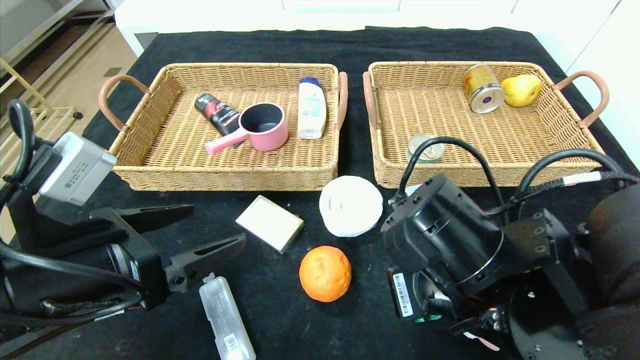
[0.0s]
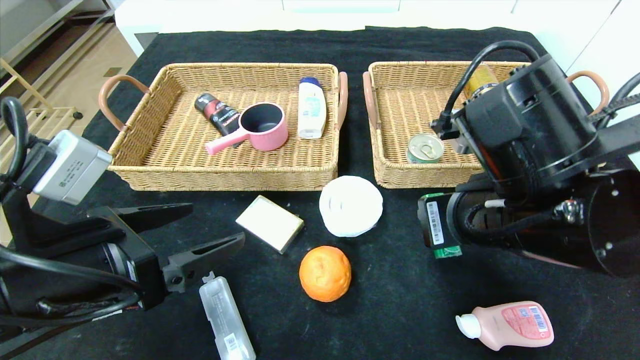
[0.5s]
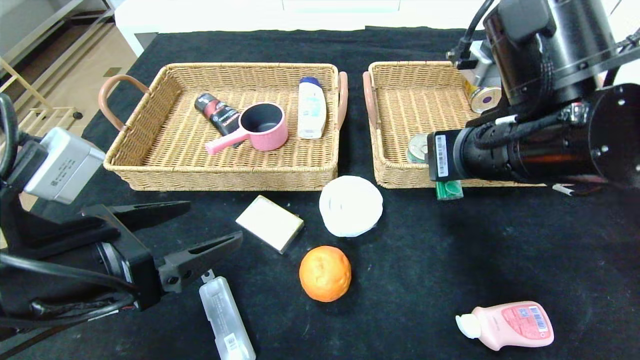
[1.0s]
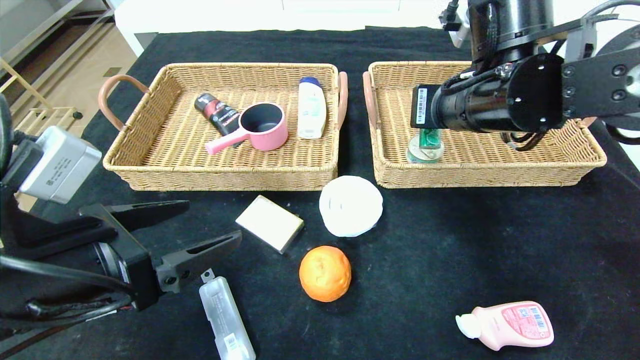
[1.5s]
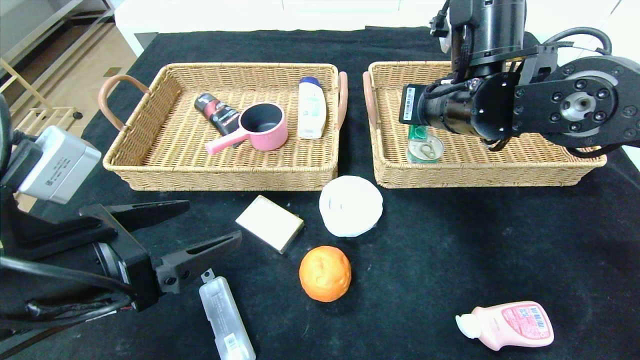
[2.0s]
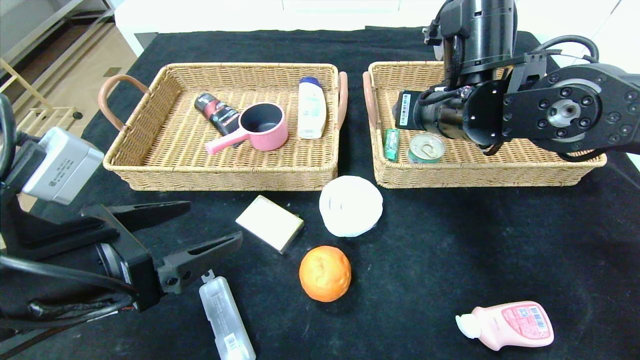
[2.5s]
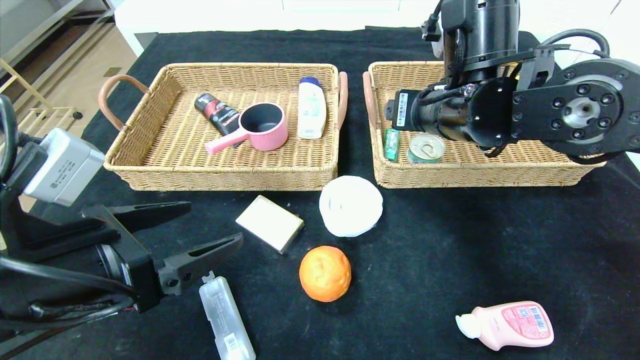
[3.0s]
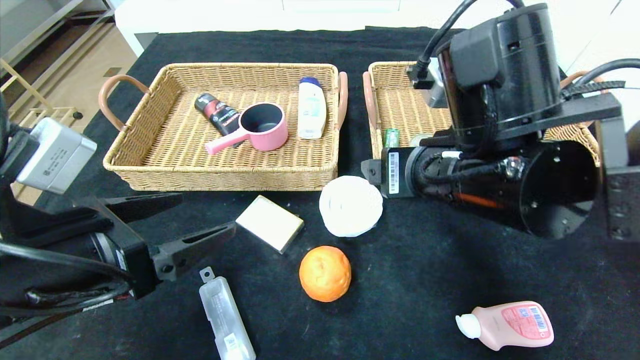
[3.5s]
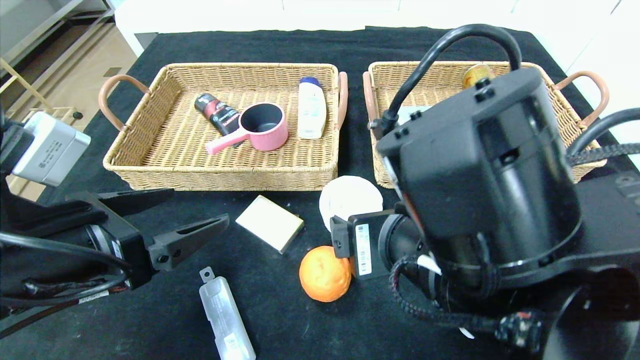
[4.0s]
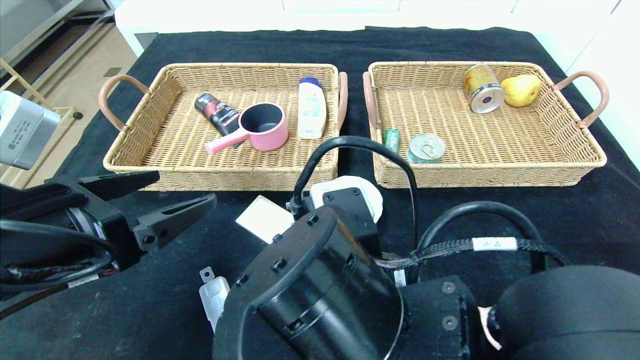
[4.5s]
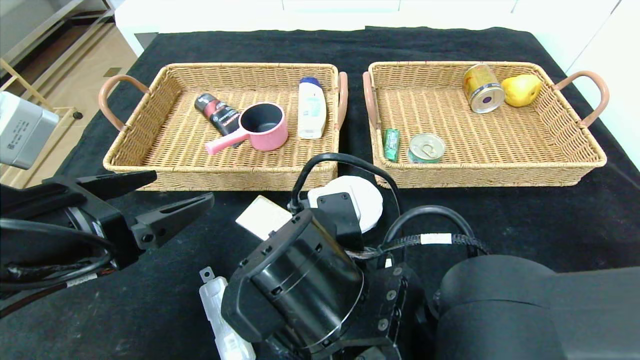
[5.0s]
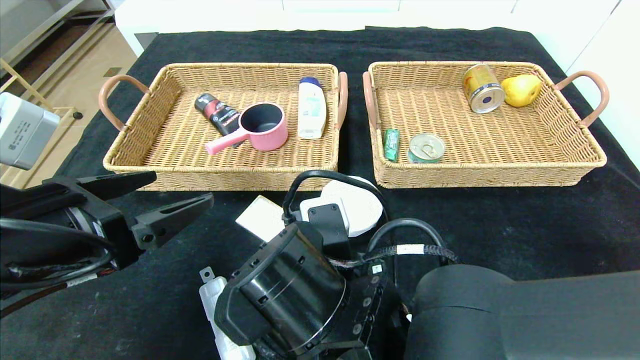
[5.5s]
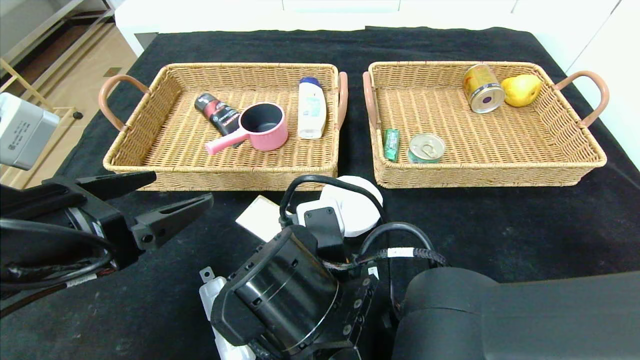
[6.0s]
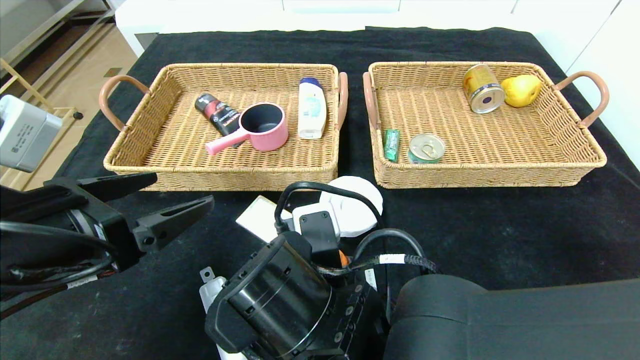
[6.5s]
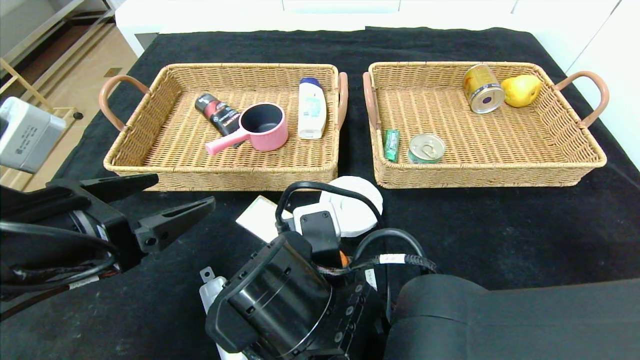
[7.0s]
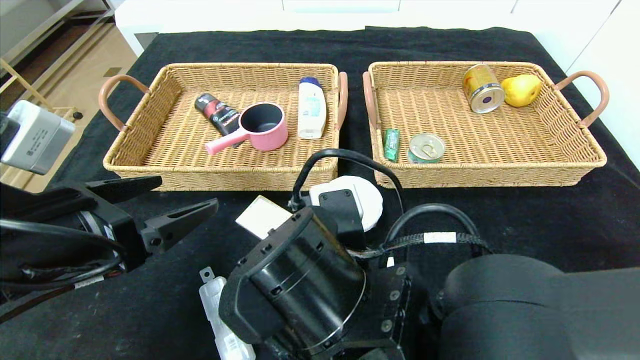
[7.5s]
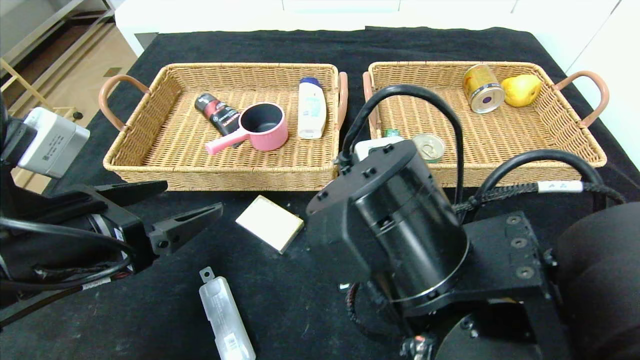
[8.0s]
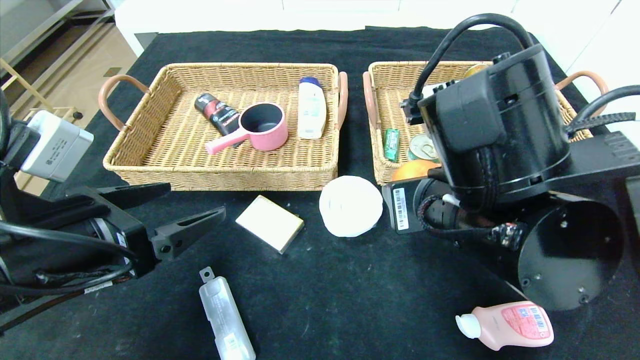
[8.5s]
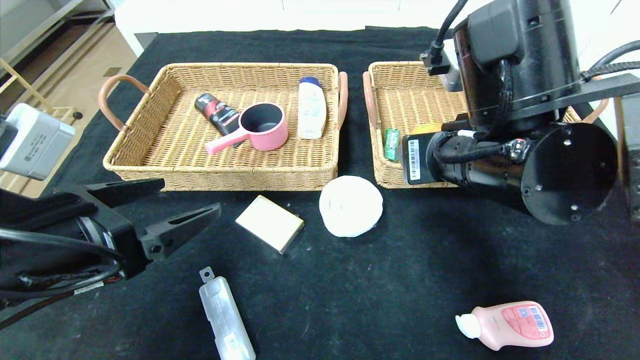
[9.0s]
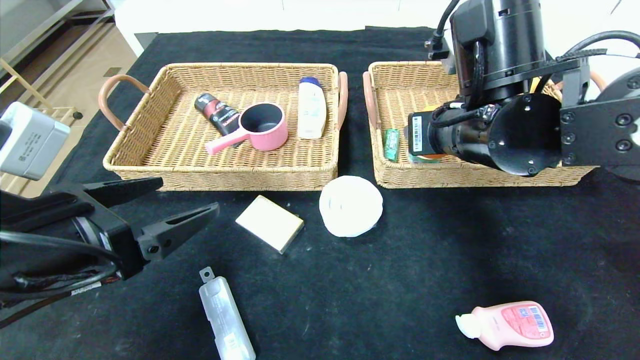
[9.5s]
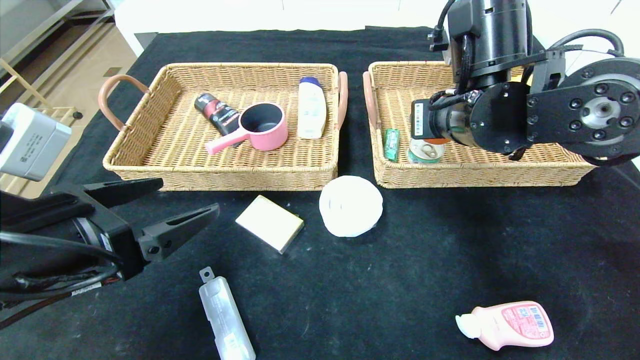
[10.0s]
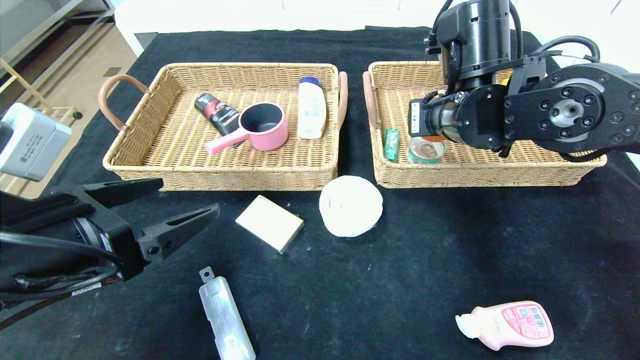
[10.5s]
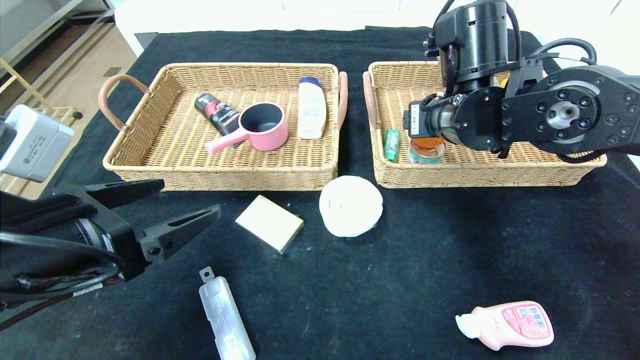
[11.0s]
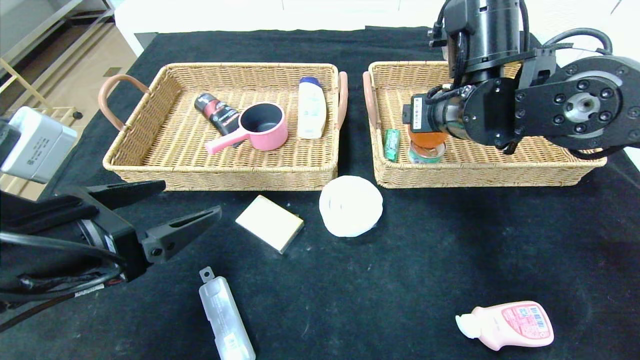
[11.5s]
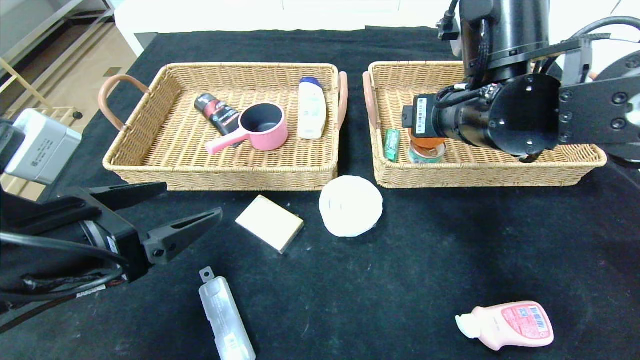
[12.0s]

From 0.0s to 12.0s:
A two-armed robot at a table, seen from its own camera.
Step, from 0.0s to 4.0s: Pick up the green chewing gum and put it in the right basket.
From 0.0s to 2.0s: The right gripper shifts roughly 20 cm forward and upward.
From 2.0s to 4.0s: The right gripper shifts roughly 20 cm backward, and opens.
From 4.0s to 6.0s: The right gripper shifts approximately 10 cm downward and to the left.
From 6.0s to 8.0s: The right gripper heads upward and to the right, covering approximately 10 cm.
From 8.0s to 10.0s: The right gripper travels forward, to the right and upward by some 20 cm.
From 10.0s to 12.0s: The right gripper opens.

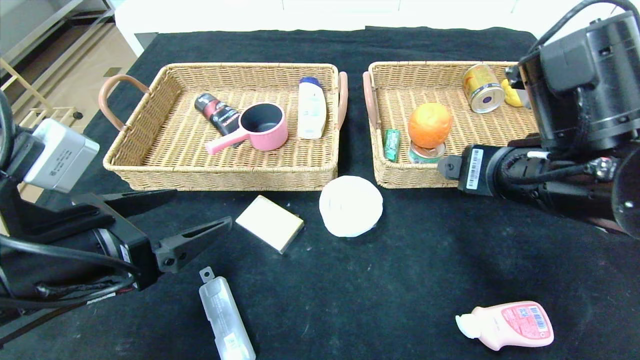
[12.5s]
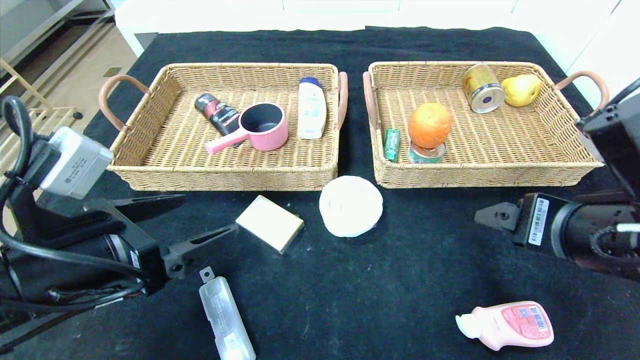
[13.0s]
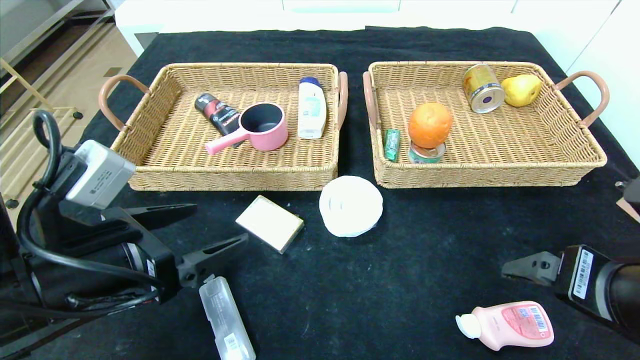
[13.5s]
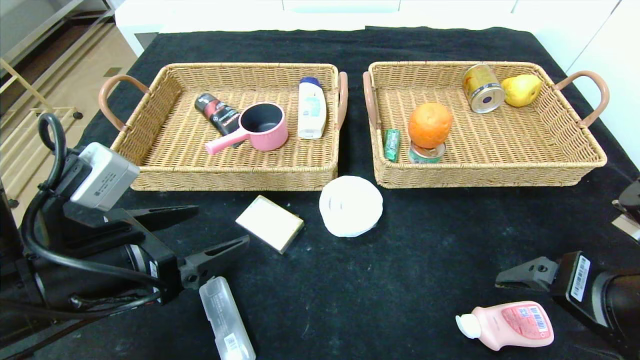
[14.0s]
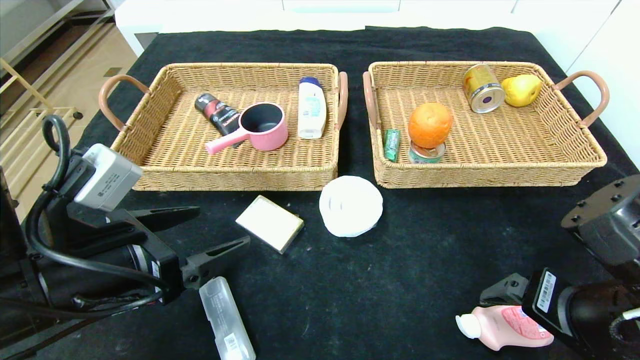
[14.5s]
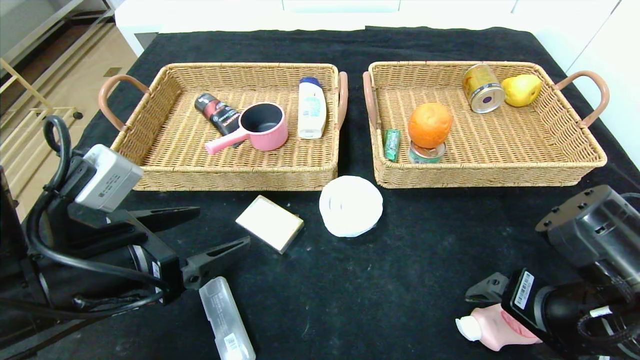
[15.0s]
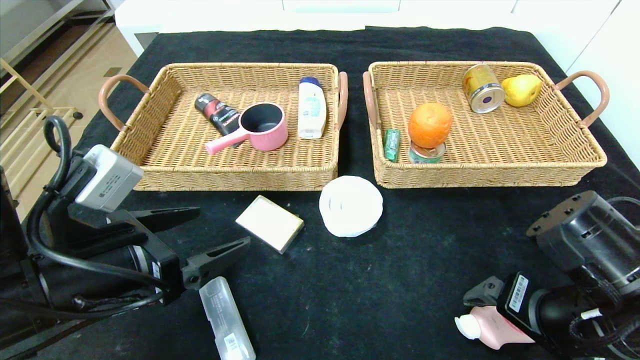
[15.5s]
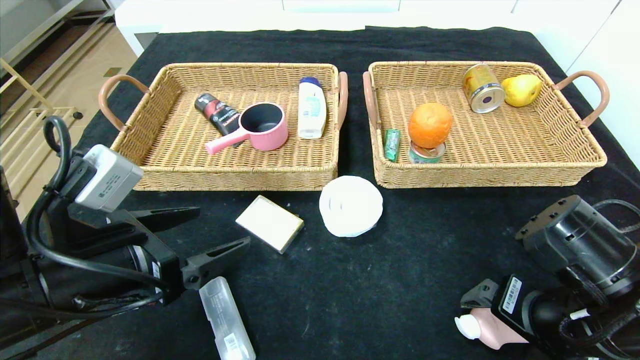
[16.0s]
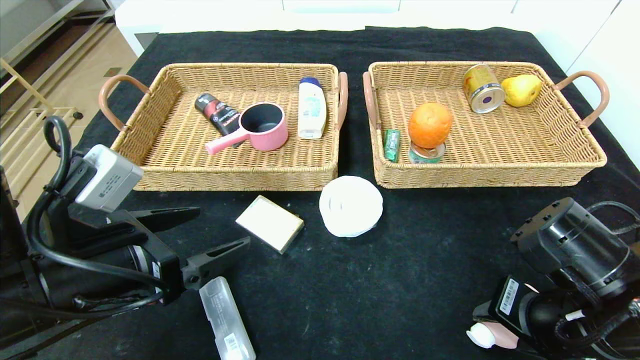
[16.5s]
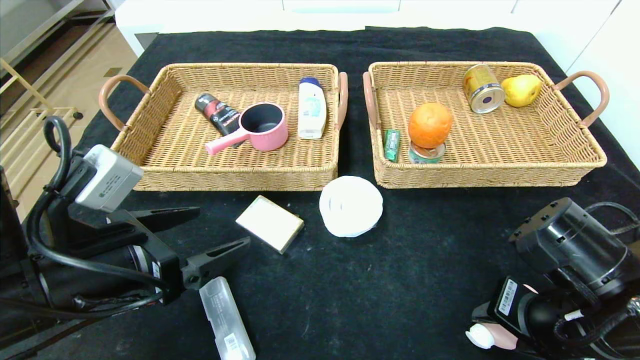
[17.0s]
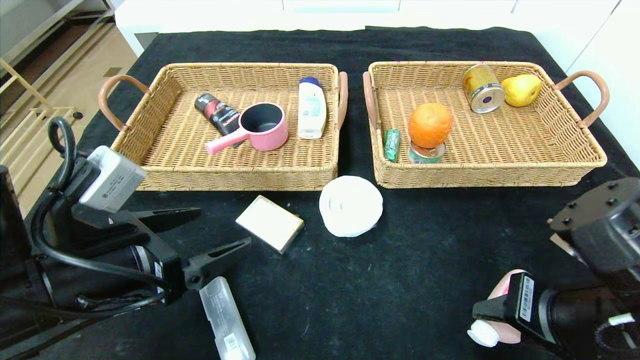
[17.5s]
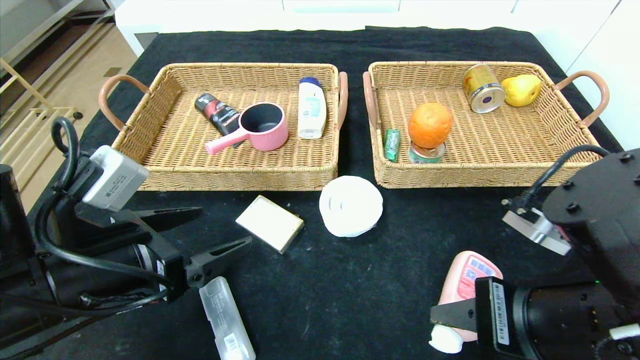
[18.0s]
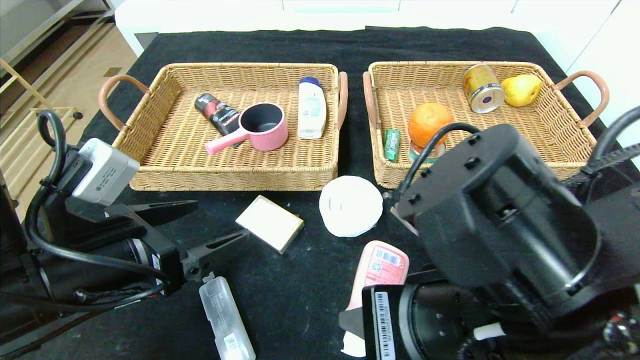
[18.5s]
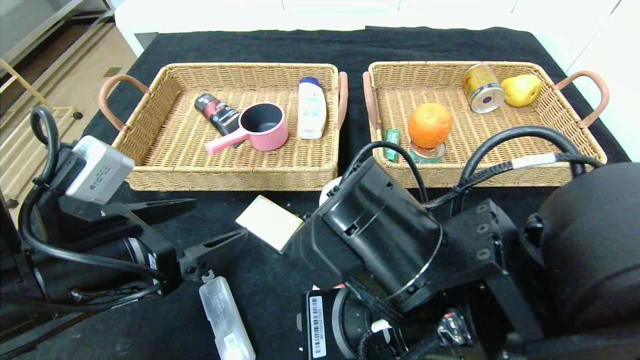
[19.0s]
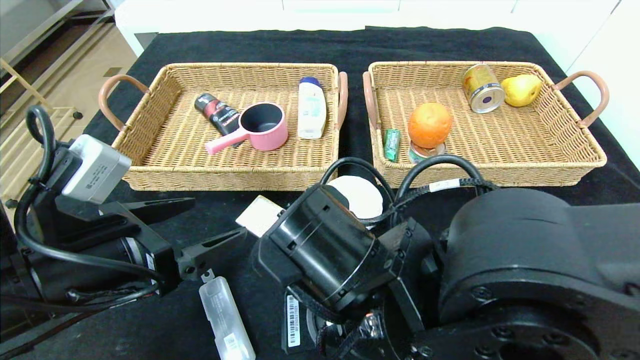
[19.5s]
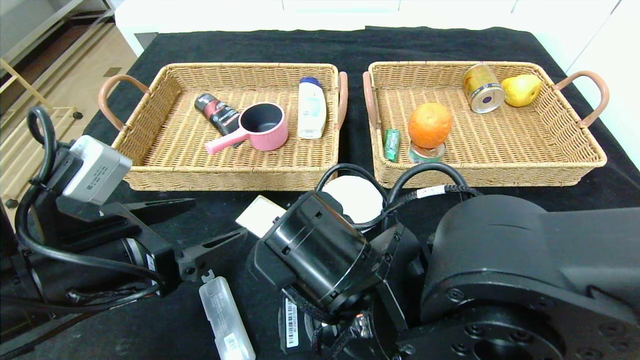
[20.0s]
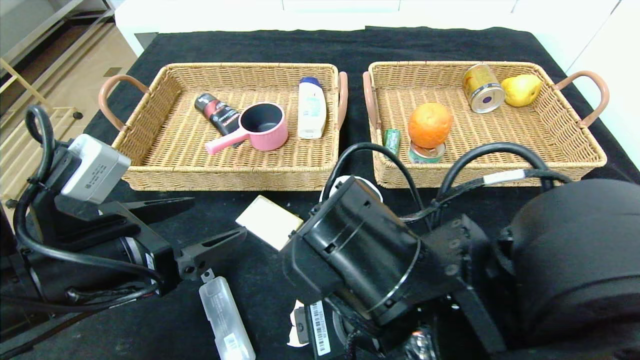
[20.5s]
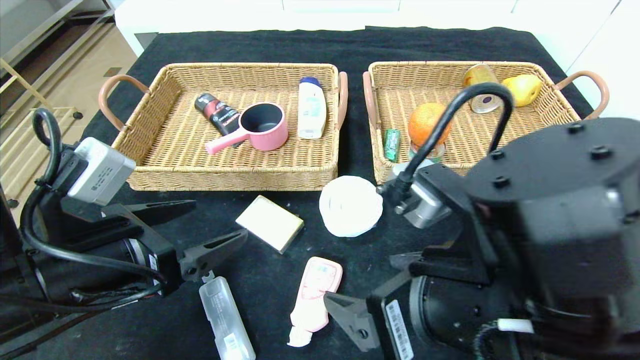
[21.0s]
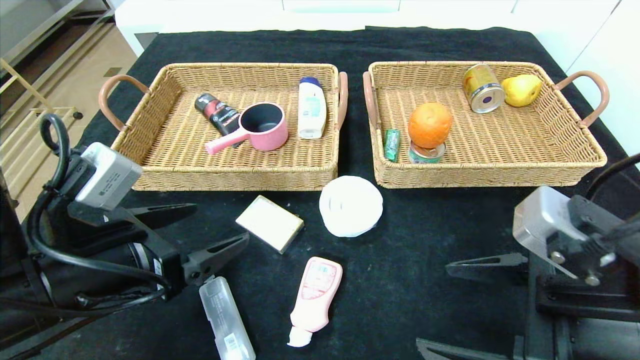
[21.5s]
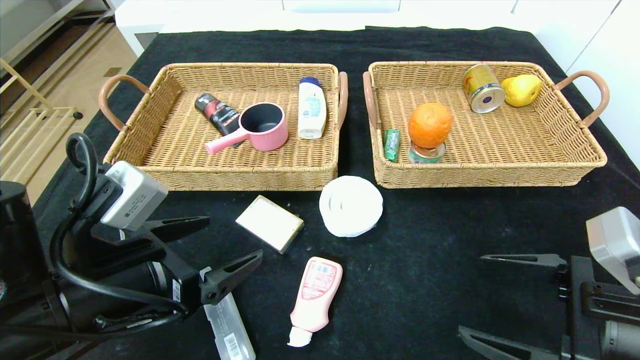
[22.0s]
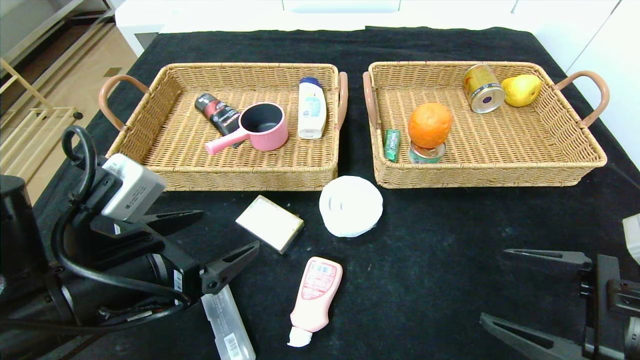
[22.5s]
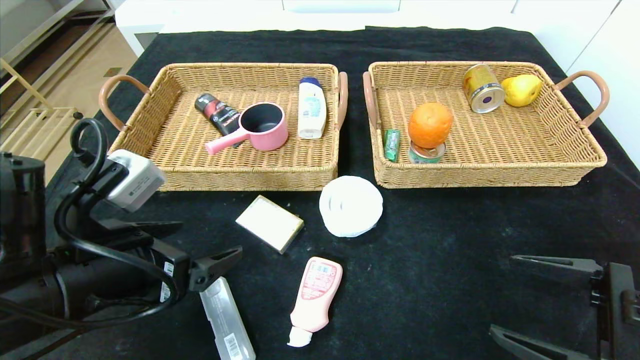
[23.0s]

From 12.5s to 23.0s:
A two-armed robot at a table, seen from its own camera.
Step, from 13.5s to 21.0s: Place the washing liquid in the center of the table.
From 12.5s to 14.5s: The right gripper shifts roughly 10 cm downward, backward and to the right.
From 14.5s to 16.5s: The right gripper closes up.
From 16.5s to 19.0s: The right gripper is displaced to the left by approximately 15 cm.
From 19.0s to 21.0s: The right gripper is displaced to the right by approximately 5 cm, and opens up.
From 21.0s to 23.0s: The right gripper heads to the right, covering approximately 15 cm.
